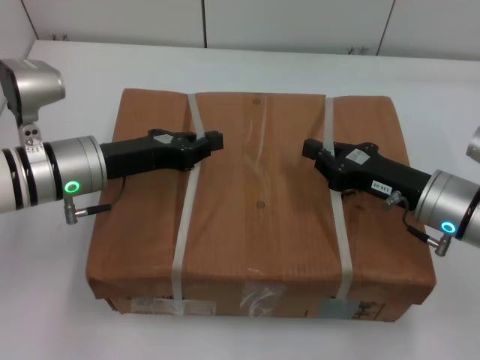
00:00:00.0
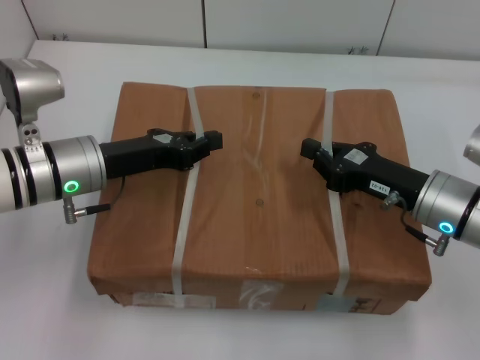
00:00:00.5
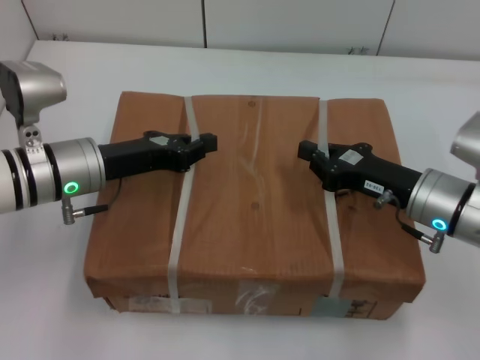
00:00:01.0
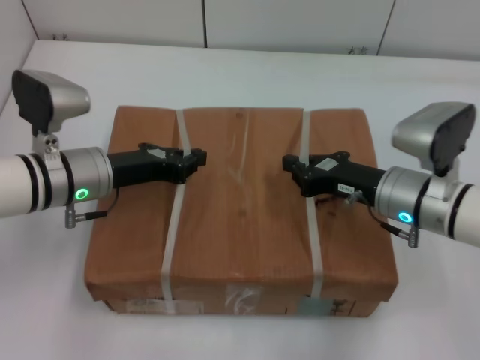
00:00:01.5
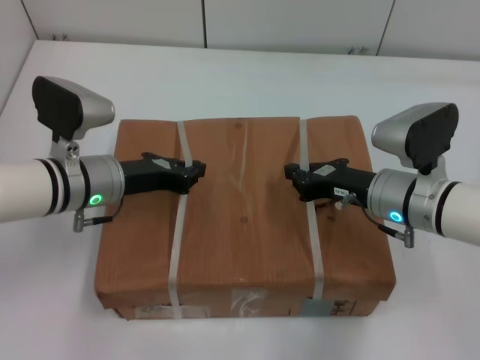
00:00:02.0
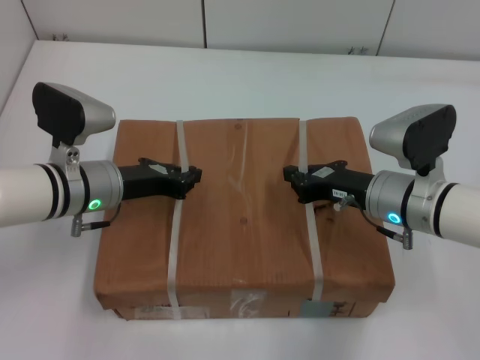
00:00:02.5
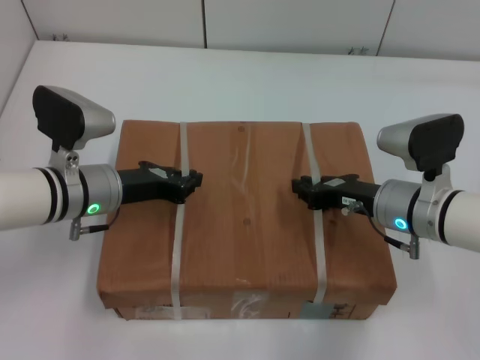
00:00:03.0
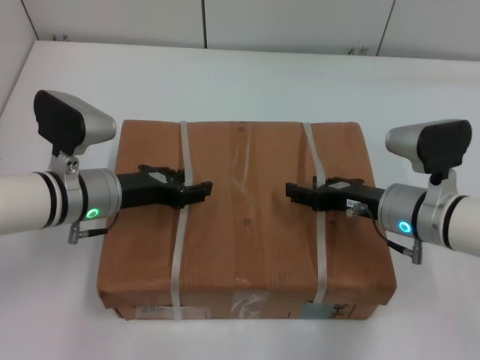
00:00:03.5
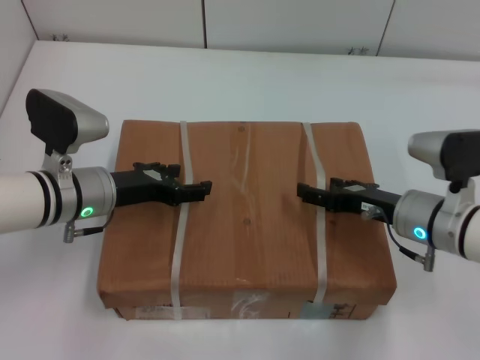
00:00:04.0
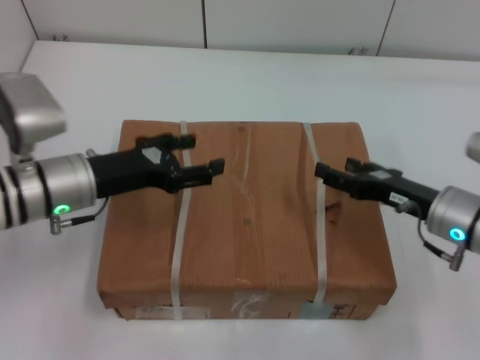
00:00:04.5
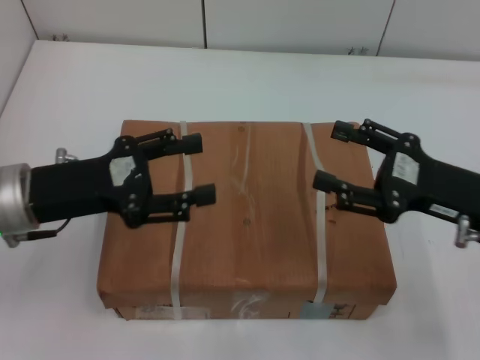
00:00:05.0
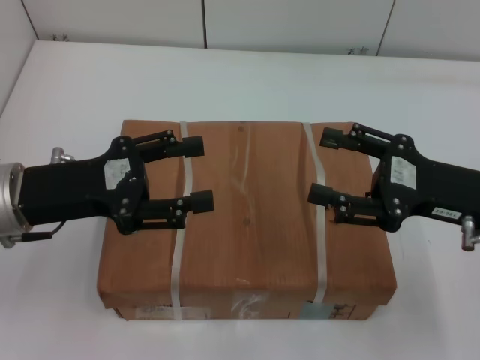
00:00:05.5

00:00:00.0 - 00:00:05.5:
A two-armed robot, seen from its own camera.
Task of the whole recording: place the box on the table with both arms.
Step, 00:00:00.0 - 00:00:02.0: Place the box on the table with left gripper.
Step, 00:00:00.0 - 00:00:02.0: Place the box on the table with right gripper.
Step, 00:00:02.5 - 00:00:03.0: Loosen the box on the table with left gripper.
Step, 00:00:02.5 - 00:00:03.0: Loosen the box on the table with right gripper.
00:00:00.0 - 00:00:02.0: The right gripper ends up about 5 cm from where it was.
00:00:02.0 - 00:00:03.5: The right gripper opens its fingers, while the left gripper opens up.
00:00:03.5 - 00:00:05.5: The left gripper is displaced upward and backward by about 10 cm, and opens up. Meanwhile the right gripper moves upward and to the right, some 10 cm, and opens up.
